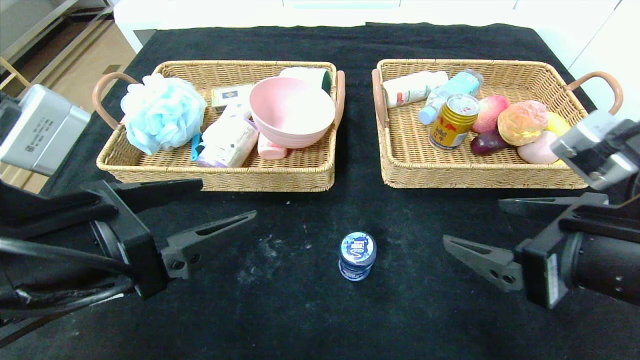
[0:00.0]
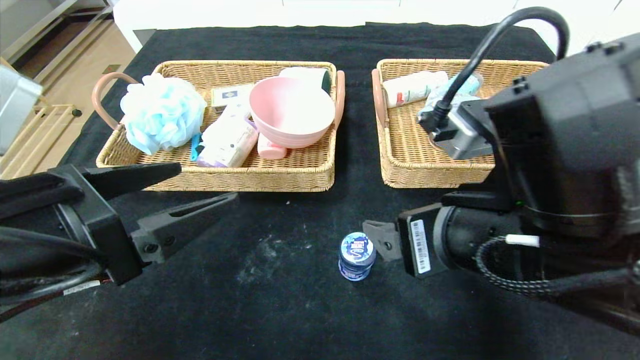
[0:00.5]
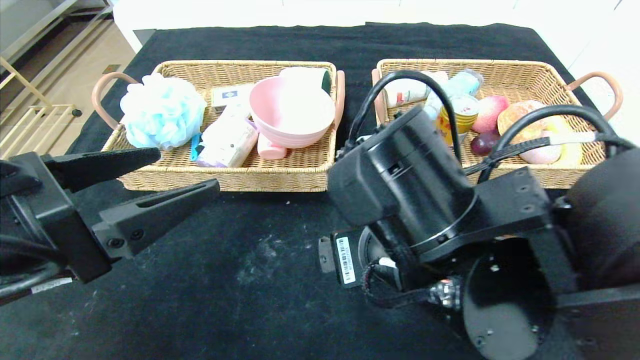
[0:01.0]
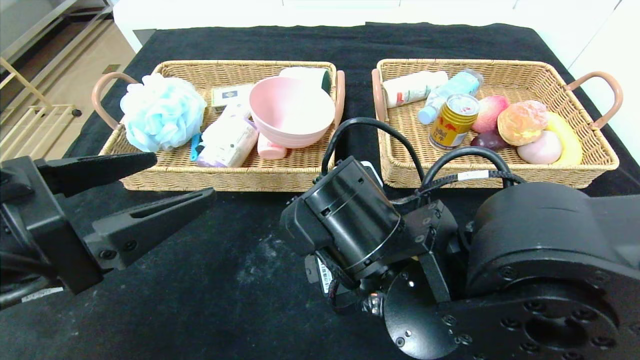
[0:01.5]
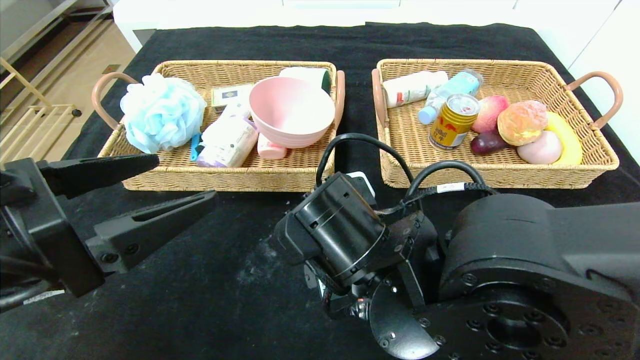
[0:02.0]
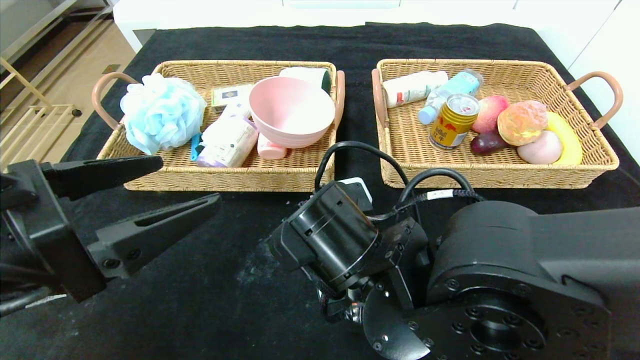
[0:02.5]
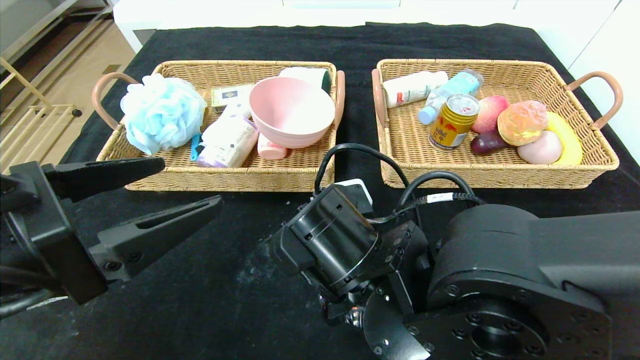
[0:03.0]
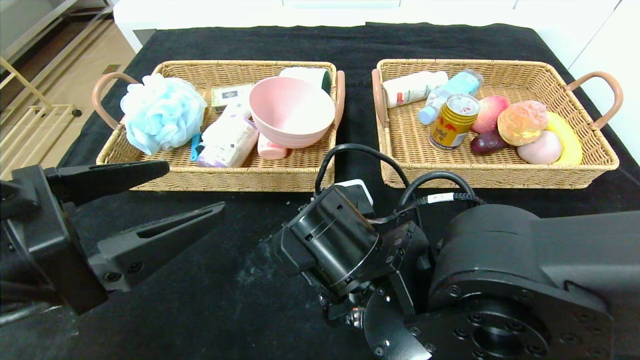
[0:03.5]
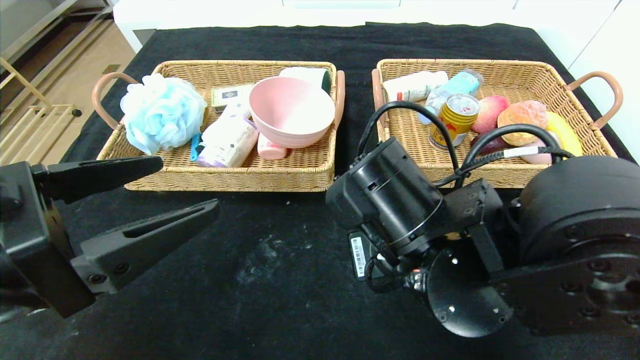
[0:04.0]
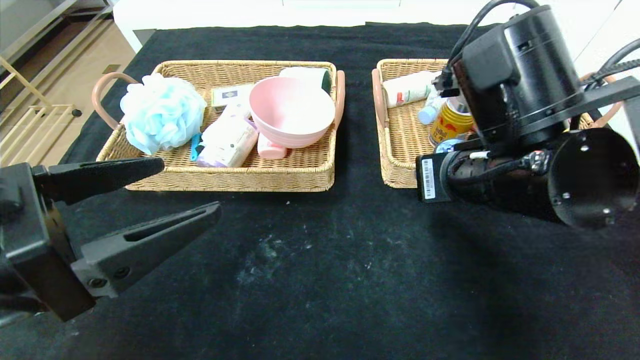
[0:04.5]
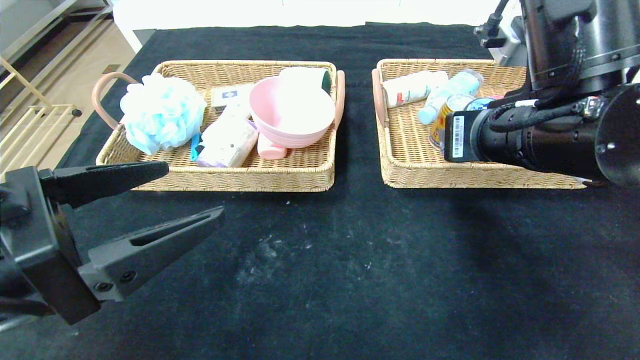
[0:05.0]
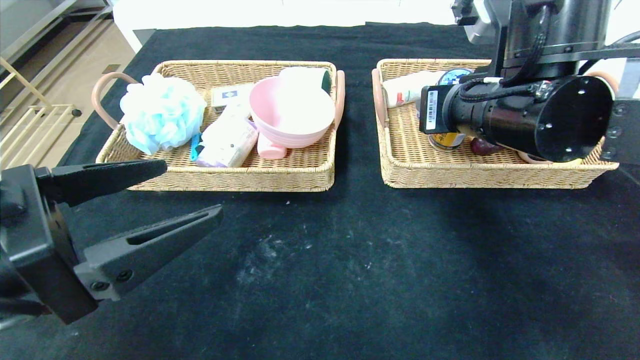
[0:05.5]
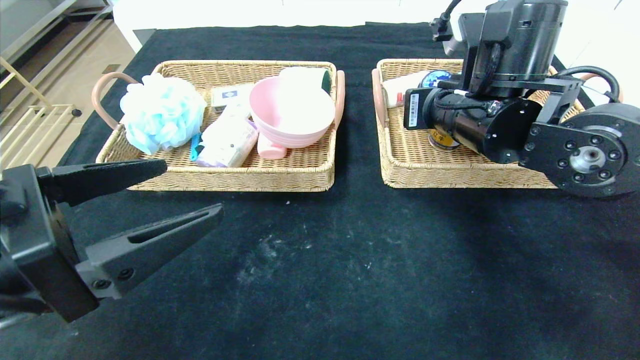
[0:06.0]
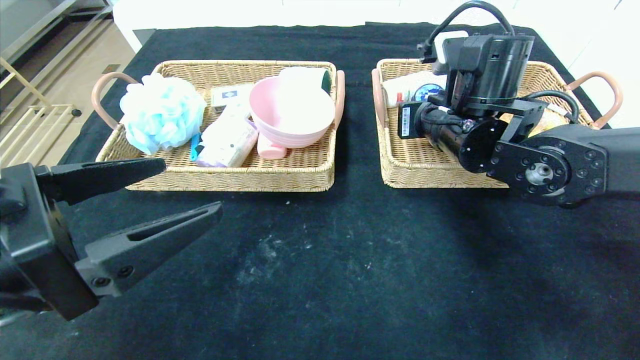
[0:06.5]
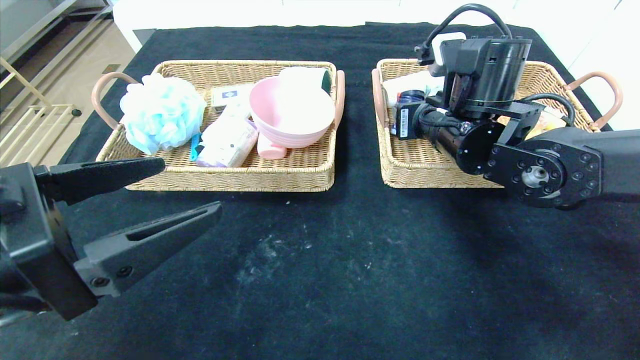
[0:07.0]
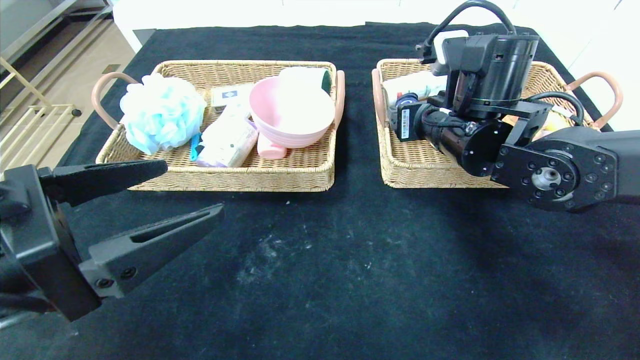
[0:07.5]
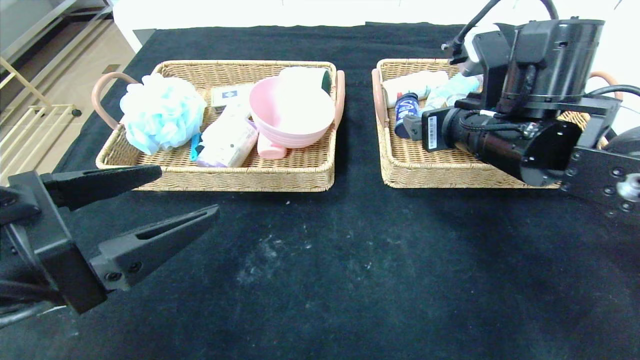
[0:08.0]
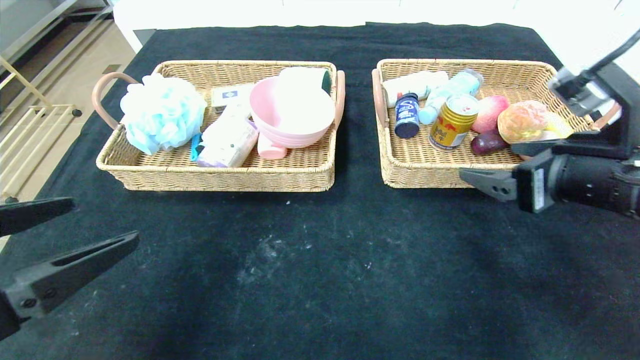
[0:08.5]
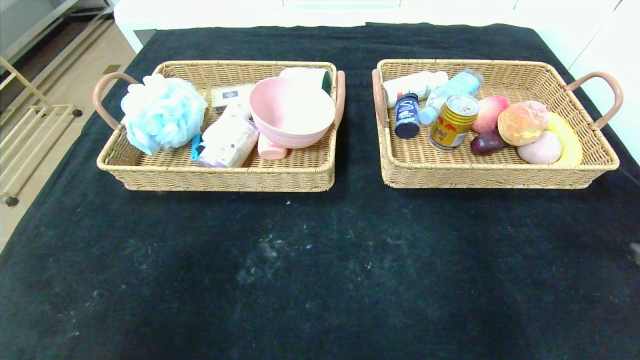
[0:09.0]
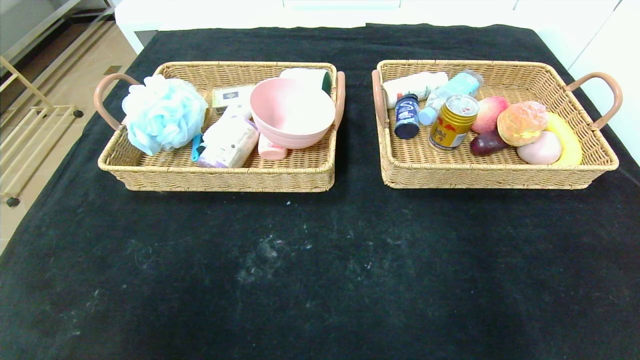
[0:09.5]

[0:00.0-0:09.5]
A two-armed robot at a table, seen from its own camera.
Step, 0:00.0 to 0:07.0: Grasp the round chewing gum and put it in the right basket.
0:00.0 to 0:02.0: The right gripper goes approximately 20 cm to the left.
0:02.0 to 0:04.0: The right gripper ends up roughly 5 cm from where it was, and closes up.
0:04.0 to 0:05.5: The right gripper moves upward, forward and to the right, roughly 15 cm.
0:05.5 to 0:07.5: The right gripper is displaced forward by some 5 cm, and opens its fingers.
0:07.5 to 0:09.5: The left gripper travels backward by about 20 cm. The right gripper travels backward and to the right by roughly 50 cm.

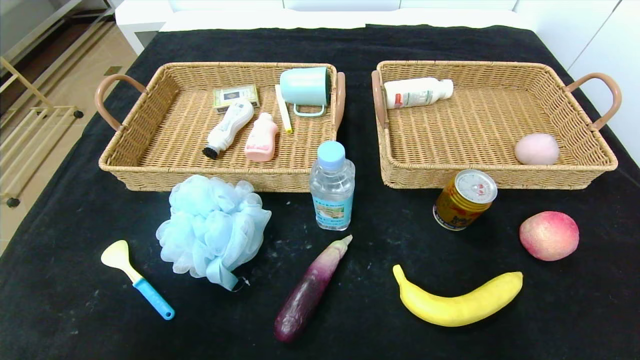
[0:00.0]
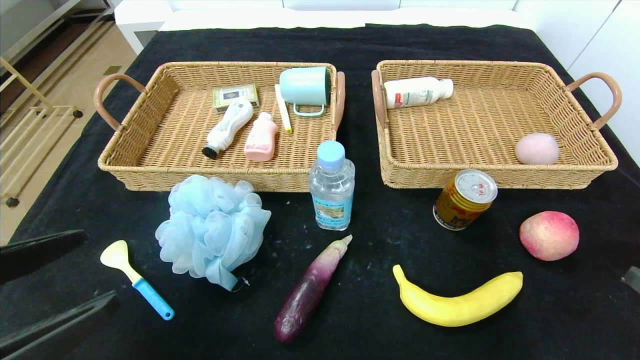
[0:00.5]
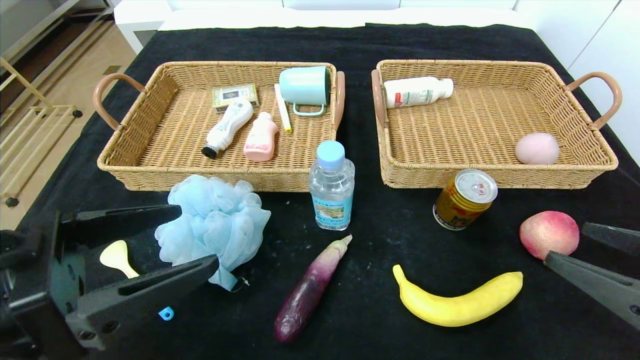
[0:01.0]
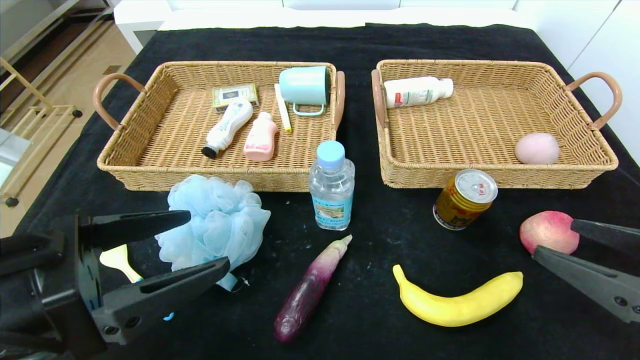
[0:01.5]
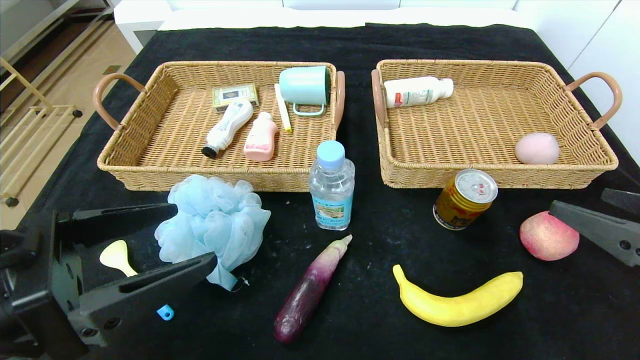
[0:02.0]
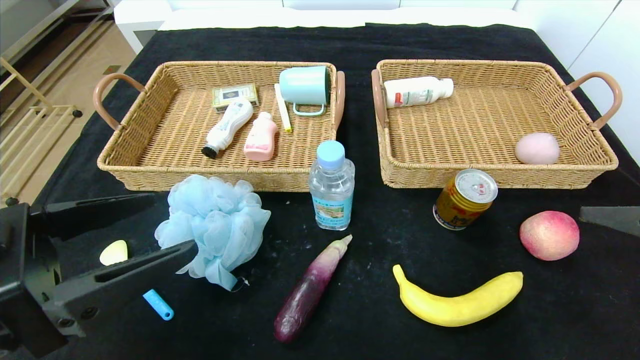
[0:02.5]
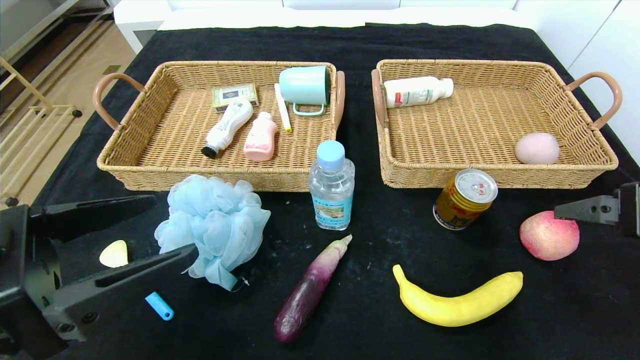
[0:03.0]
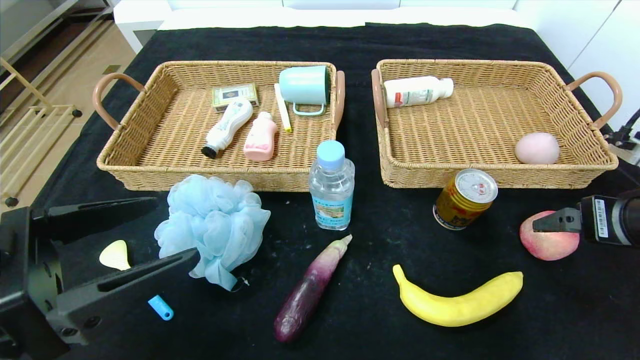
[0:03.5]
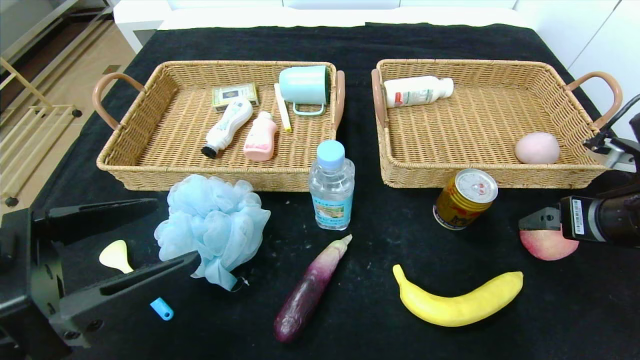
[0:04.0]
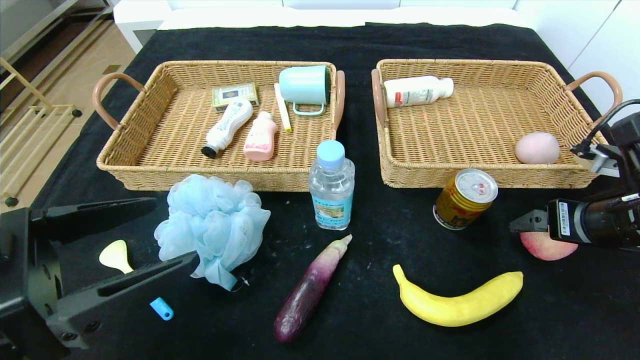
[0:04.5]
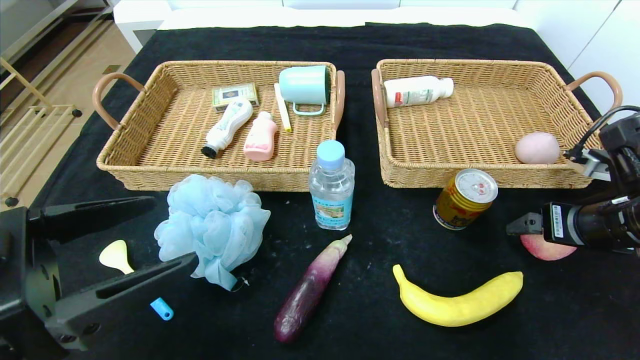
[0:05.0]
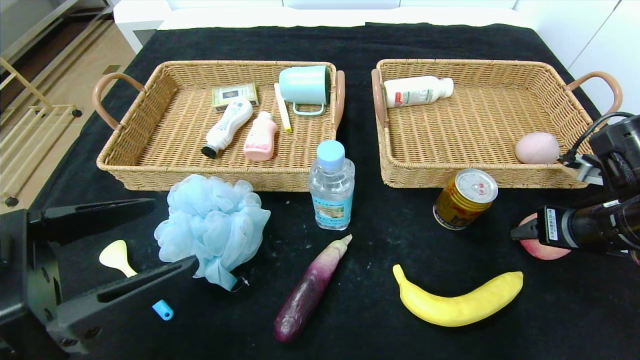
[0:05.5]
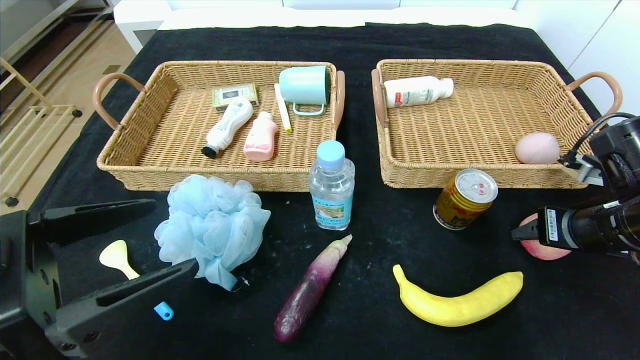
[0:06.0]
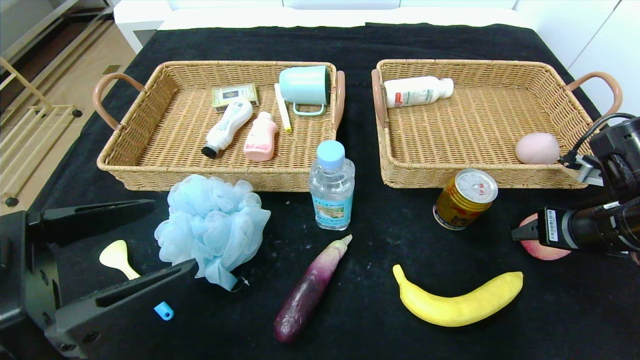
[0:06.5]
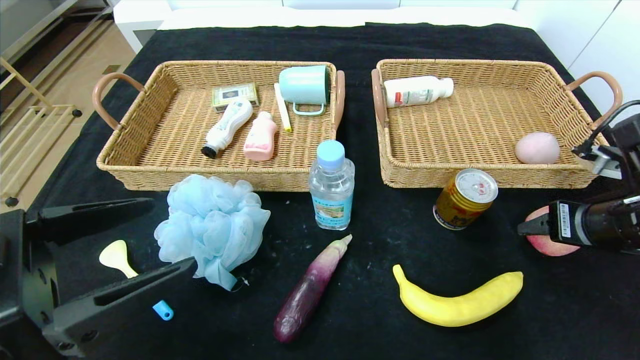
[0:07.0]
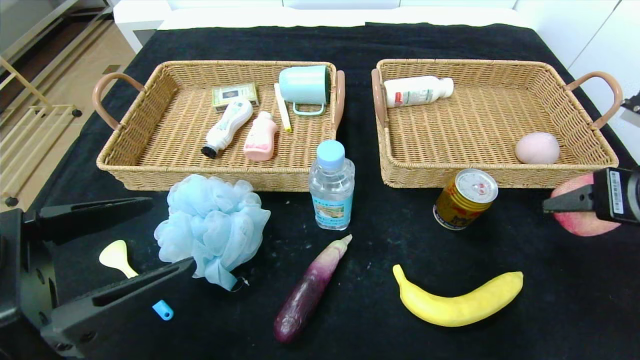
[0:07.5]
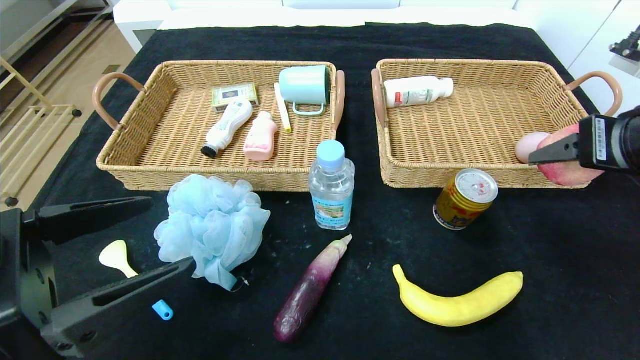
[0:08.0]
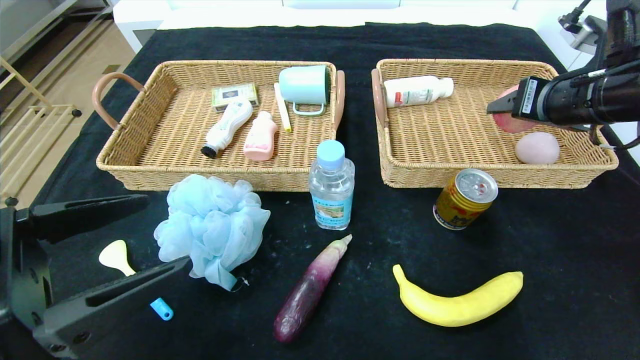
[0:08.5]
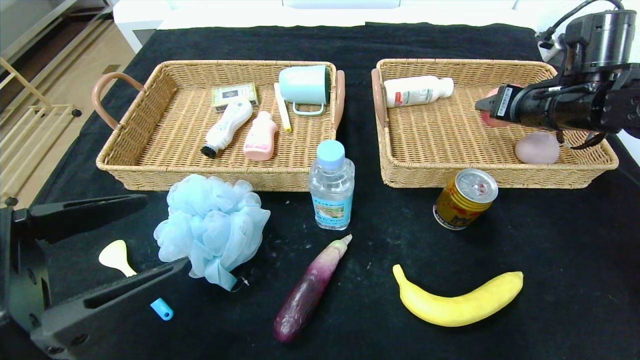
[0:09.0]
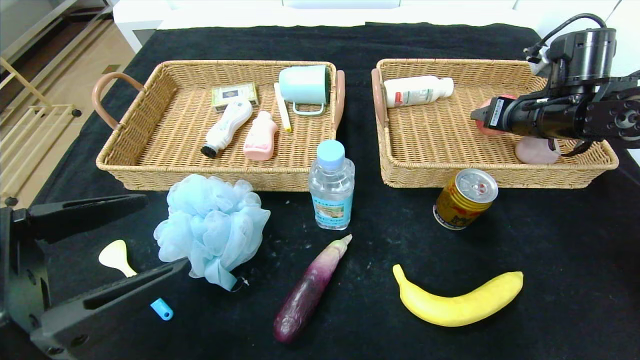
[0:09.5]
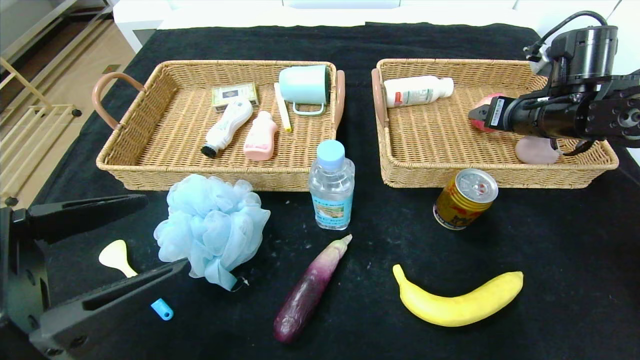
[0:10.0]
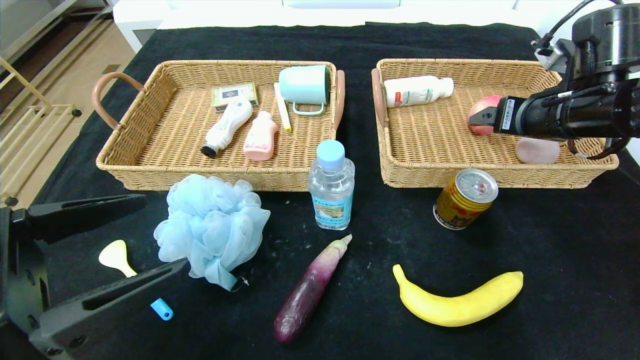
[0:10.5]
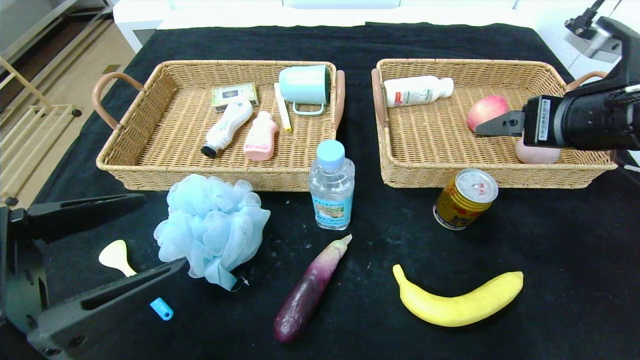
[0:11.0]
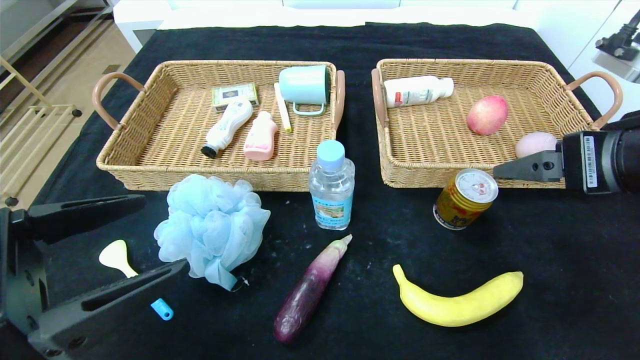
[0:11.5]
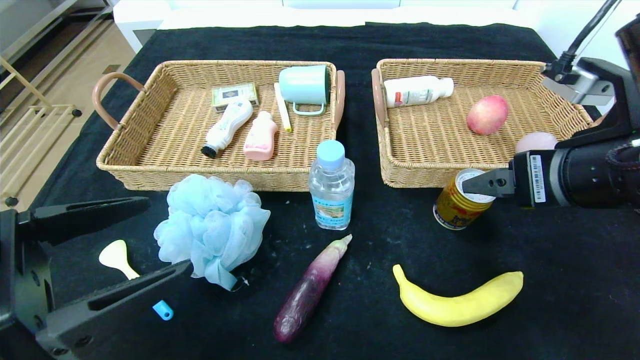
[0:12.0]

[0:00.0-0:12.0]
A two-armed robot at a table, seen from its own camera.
Step, 0:00.0 to 0:10.0: Grasp the peach and put it in the right basket.
0:00.0 to 0:02.0: The right gripper travels forward and upward by roughly 15 cm. The left gripper heads forward, upward and to the right, covering roughly 15 cm.
0:02.0 to 0:04.0: The right gripper goes approximately 10 cm forward.
0:04.0 to 0:06.0: The right gripper closes up.
0:06.0 to 0:08.0: The right gripper heads upward, covering about 10 cm.
0:08.0 to 0:10.0: The right gripper shifts about 15 cm forward.
0:10.0 to 0:12.0: The right gripper moves backward and to the left, some 20 cm.
